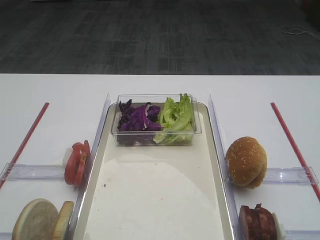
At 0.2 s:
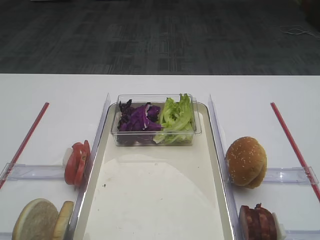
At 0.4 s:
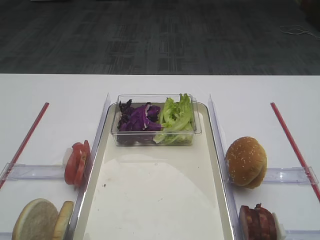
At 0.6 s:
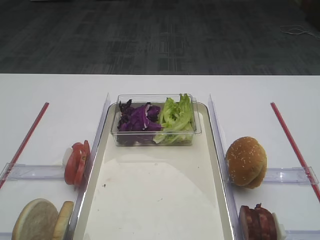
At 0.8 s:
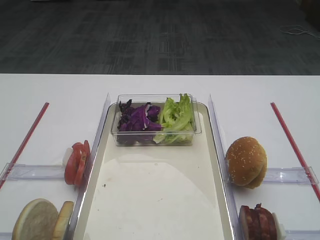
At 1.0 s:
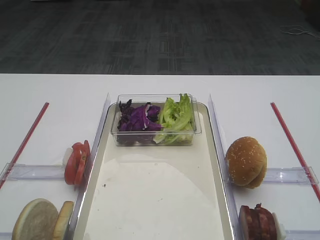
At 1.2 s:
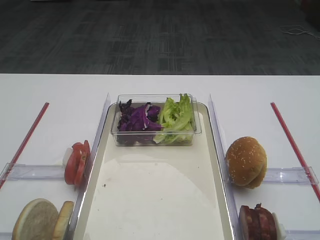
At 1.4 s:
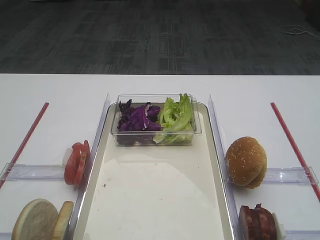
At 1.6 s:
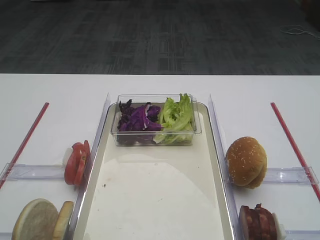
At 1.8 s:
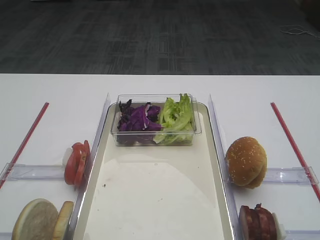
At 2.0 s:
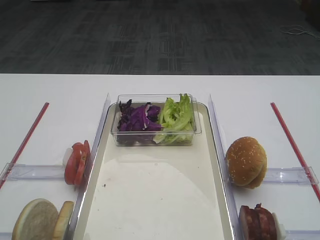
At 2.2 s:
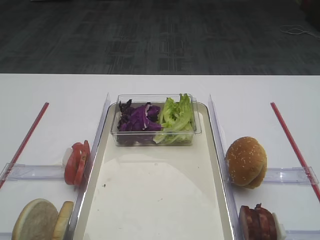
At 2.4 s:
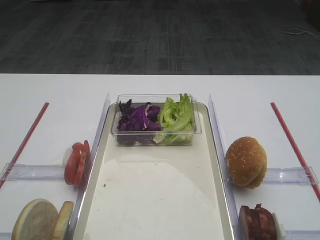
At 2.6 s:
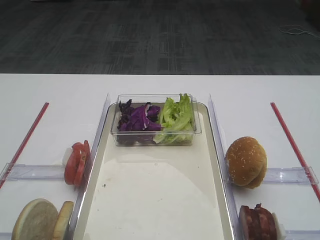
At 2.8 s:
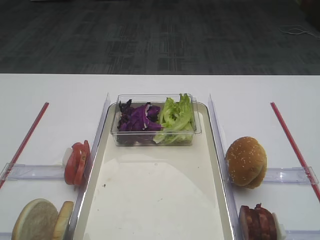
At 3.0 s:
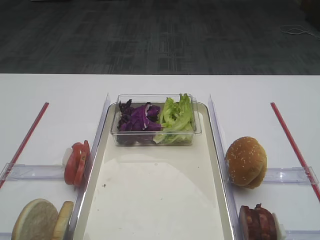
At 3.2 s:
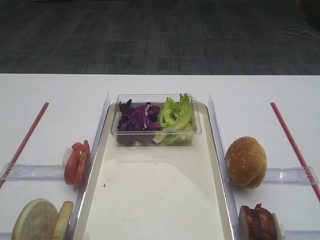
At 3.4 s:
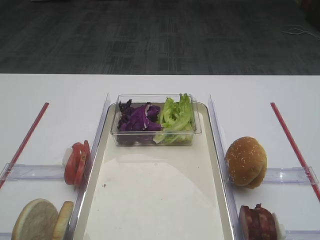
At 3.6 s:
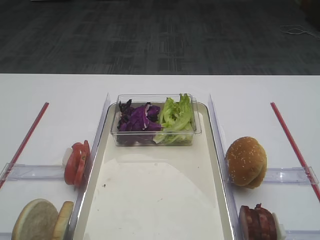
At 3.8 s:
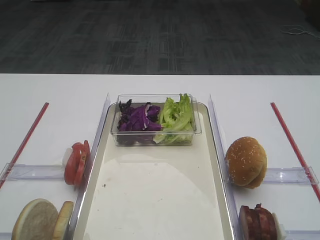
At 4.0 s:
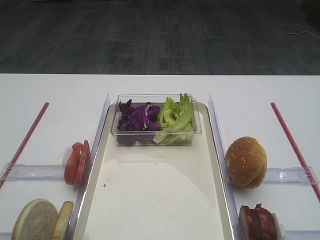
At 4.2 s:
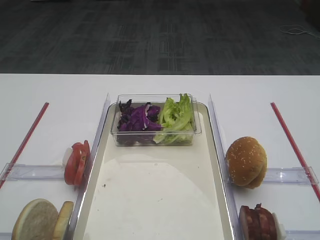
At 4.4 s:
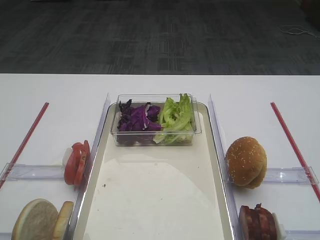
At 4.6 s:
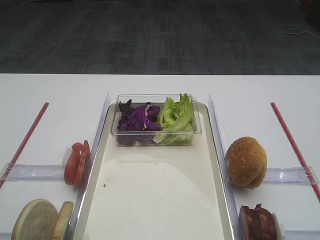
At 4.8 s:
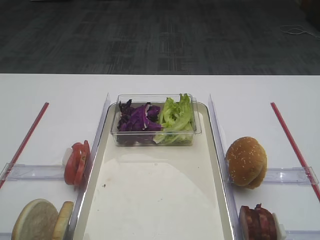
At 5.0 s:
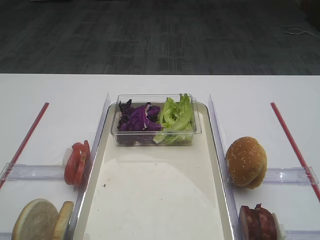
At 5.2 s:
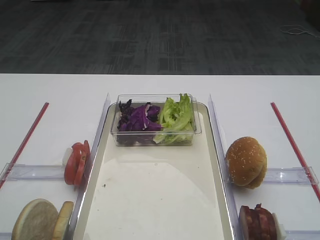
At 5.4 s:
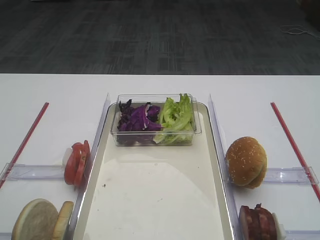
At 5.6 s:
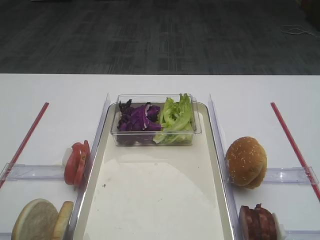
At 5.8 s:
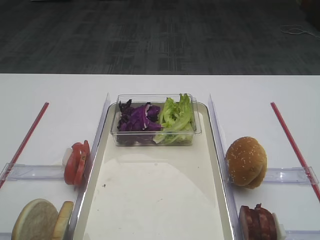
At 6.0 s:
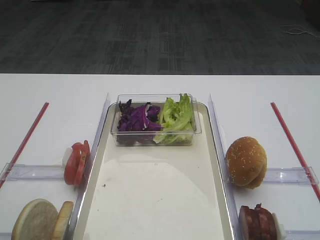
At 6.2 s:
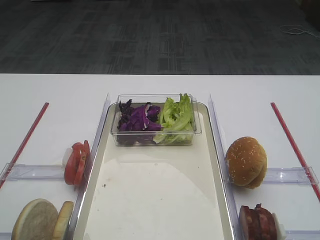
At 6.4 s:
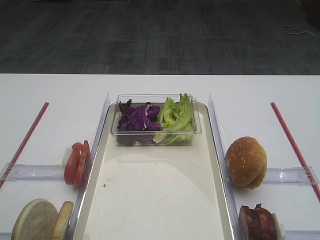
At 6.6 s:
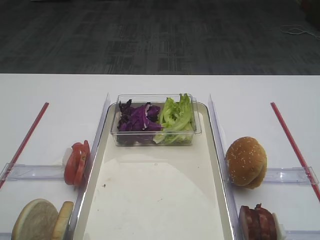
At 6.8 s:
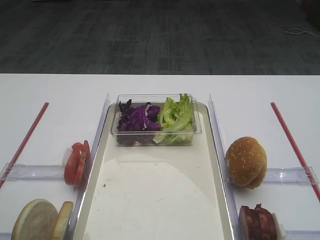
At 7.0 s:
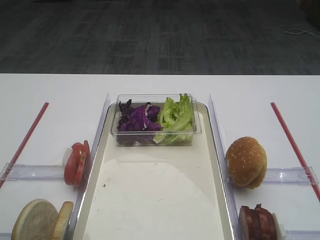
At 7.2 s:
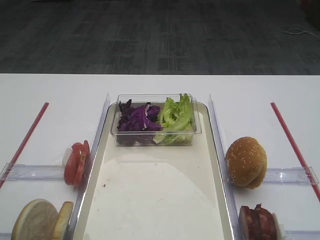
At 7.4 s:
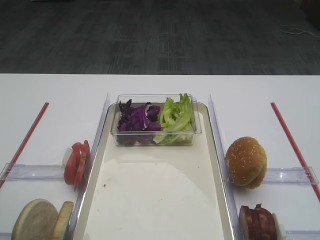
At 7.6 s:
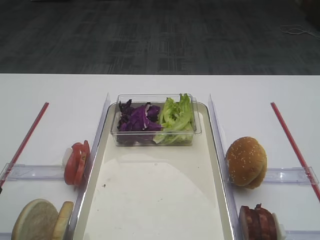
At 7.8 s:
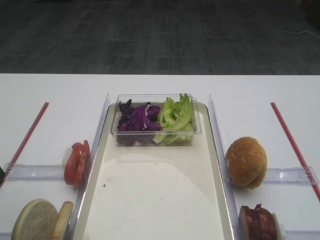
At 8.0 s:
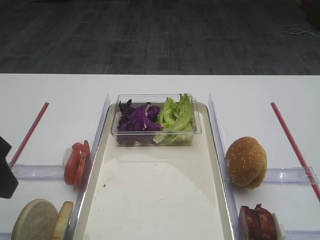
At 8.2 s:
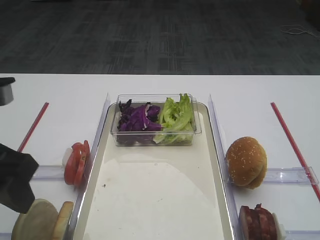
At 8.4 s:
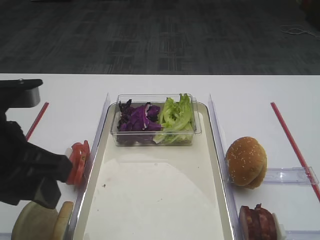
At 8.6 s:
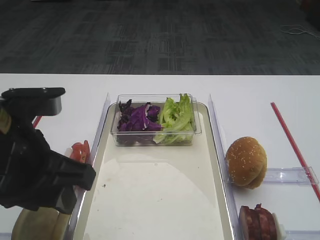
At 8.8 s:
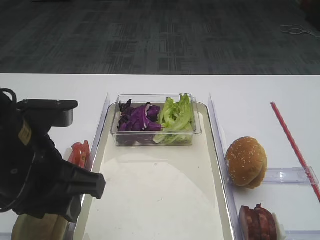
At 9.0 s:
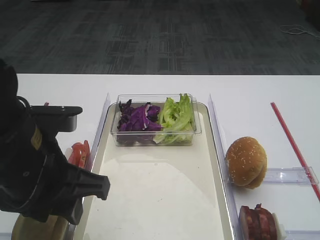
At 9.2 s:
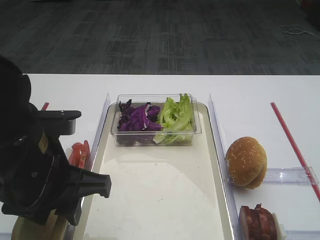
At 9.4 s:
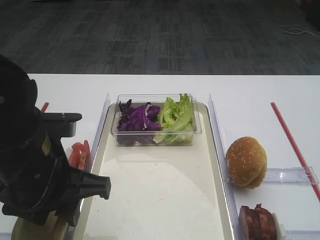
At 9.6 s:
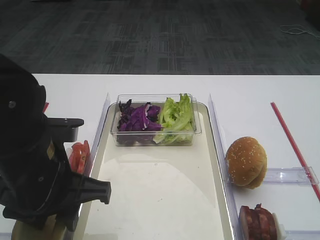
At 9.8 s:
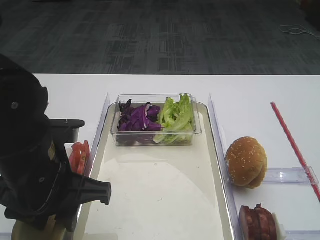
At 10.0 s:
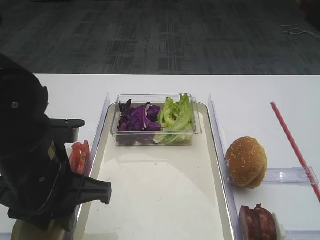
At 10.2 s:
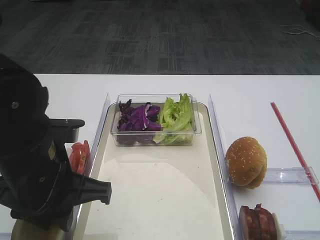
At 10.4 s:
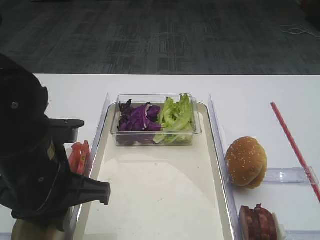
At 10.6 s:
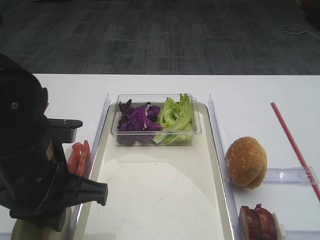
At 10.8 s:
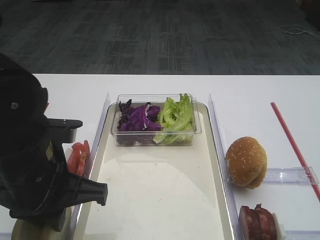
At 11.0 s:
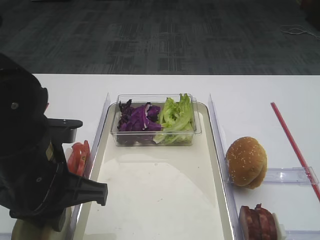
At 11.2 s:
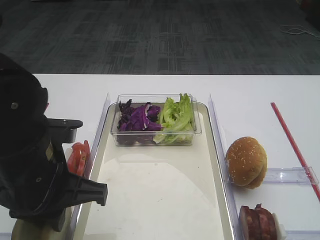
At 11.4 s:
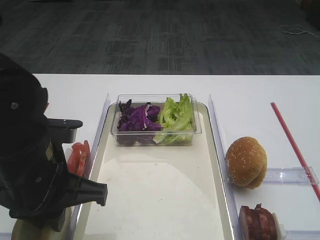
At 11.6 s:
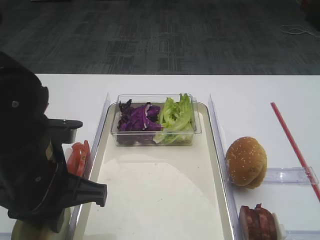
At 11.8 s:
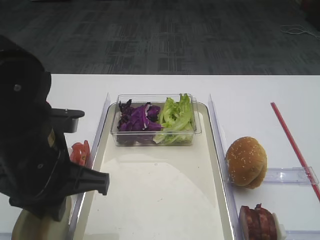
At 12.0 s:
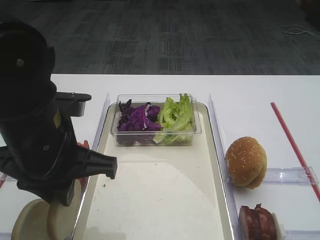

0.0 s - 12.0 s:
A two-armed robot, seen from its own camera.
Step, 0.0 s - 12.0 s: Pick up the bread slice with the left gripper.
7.6 s - 9.0 s: The left gripper shifts approximately 10 cm to the right.
9.0 s - 10.4 s: The left gripper closes.
10.4 s - 12.0 s: There are only small adjustments of the grippers.

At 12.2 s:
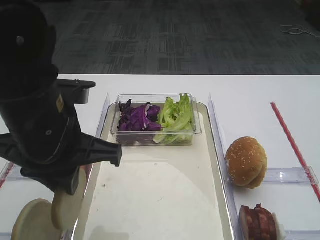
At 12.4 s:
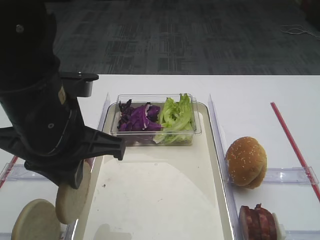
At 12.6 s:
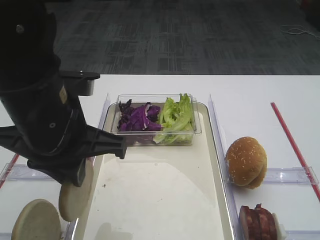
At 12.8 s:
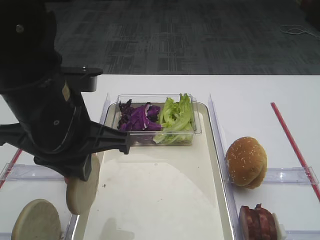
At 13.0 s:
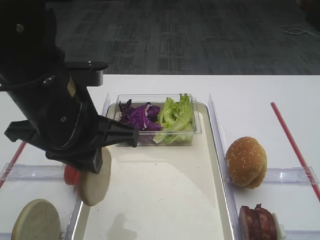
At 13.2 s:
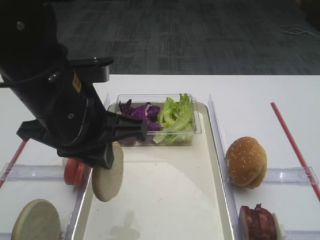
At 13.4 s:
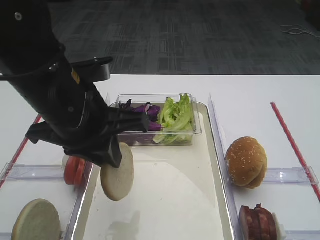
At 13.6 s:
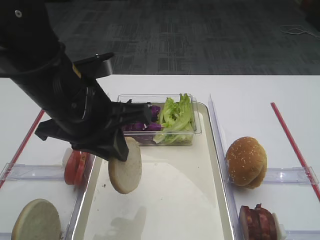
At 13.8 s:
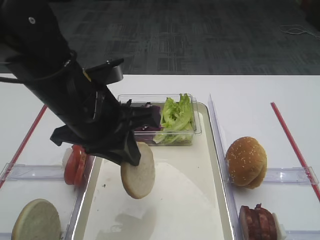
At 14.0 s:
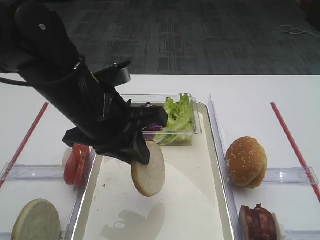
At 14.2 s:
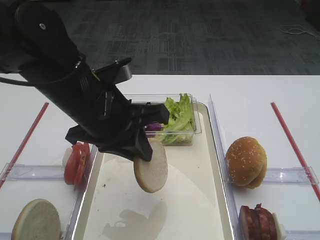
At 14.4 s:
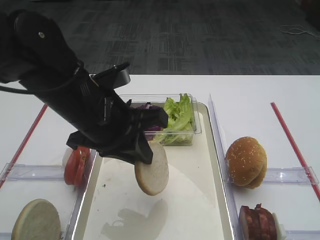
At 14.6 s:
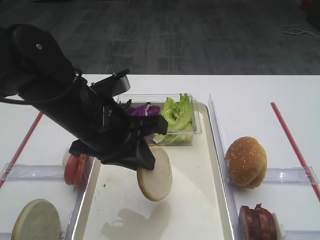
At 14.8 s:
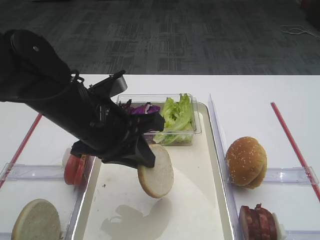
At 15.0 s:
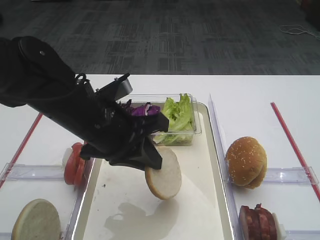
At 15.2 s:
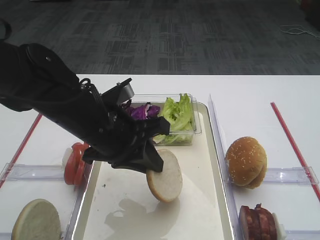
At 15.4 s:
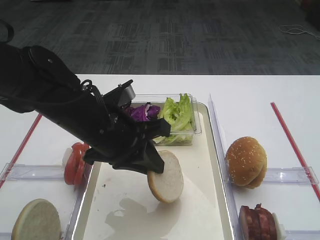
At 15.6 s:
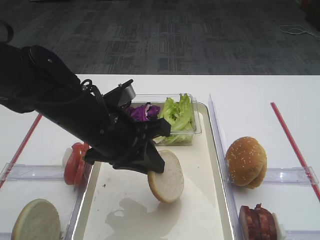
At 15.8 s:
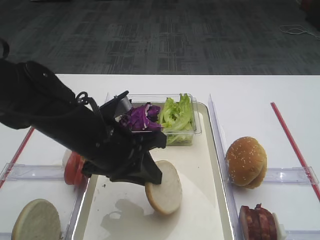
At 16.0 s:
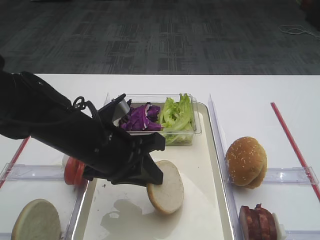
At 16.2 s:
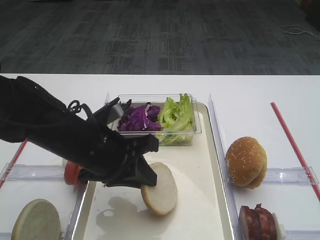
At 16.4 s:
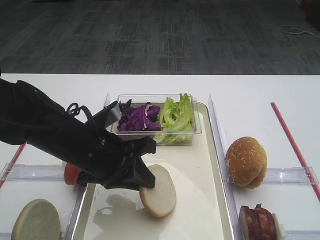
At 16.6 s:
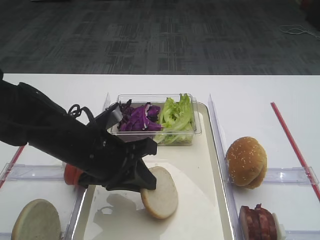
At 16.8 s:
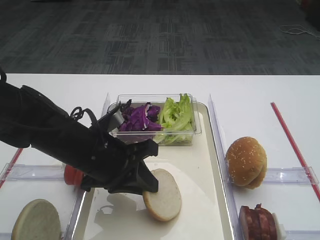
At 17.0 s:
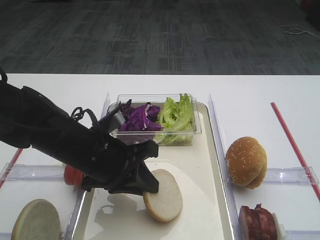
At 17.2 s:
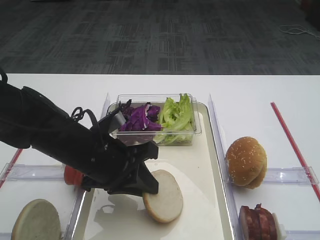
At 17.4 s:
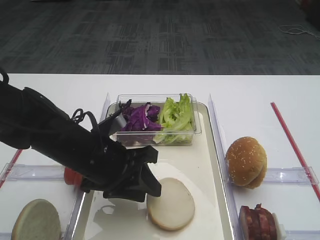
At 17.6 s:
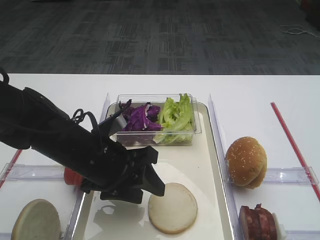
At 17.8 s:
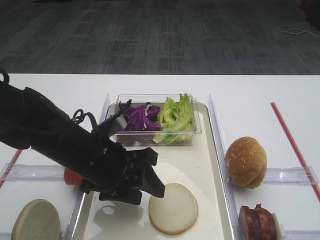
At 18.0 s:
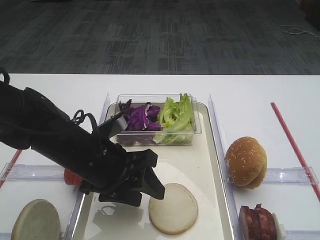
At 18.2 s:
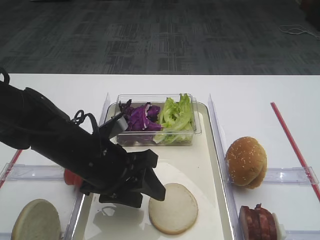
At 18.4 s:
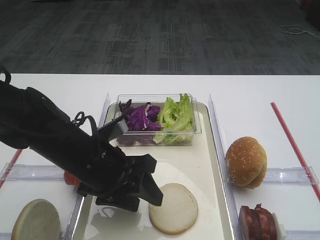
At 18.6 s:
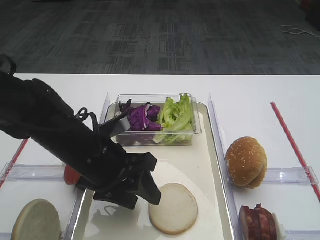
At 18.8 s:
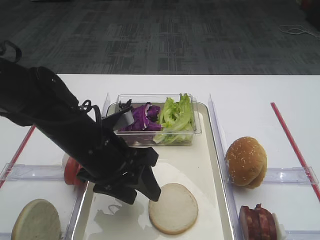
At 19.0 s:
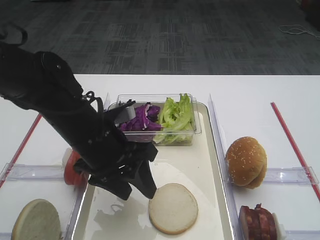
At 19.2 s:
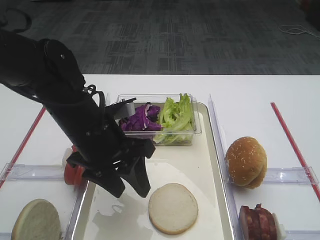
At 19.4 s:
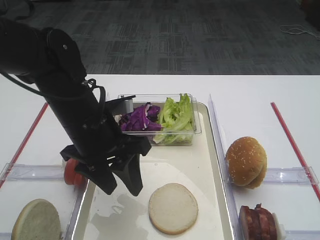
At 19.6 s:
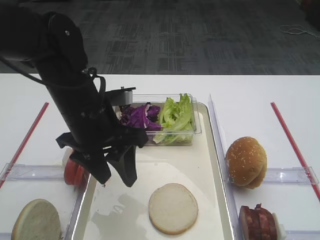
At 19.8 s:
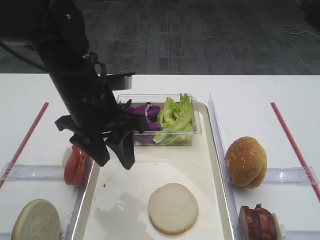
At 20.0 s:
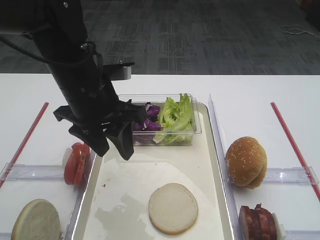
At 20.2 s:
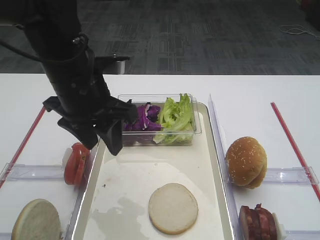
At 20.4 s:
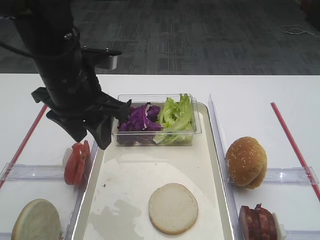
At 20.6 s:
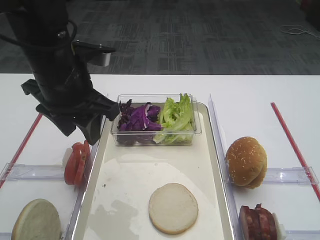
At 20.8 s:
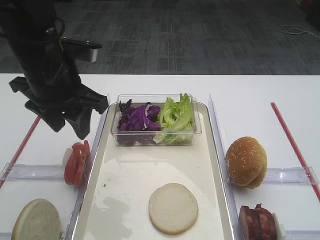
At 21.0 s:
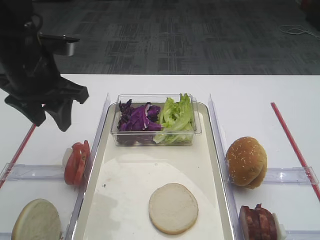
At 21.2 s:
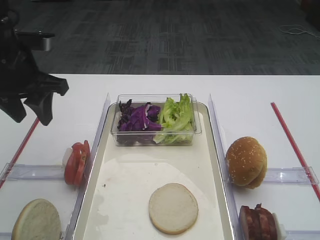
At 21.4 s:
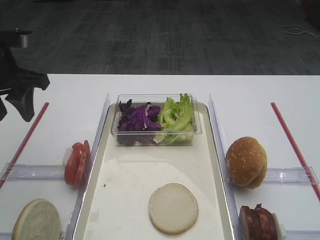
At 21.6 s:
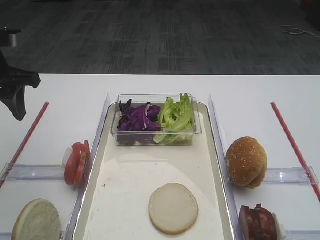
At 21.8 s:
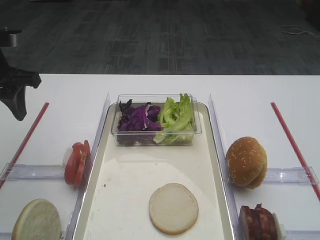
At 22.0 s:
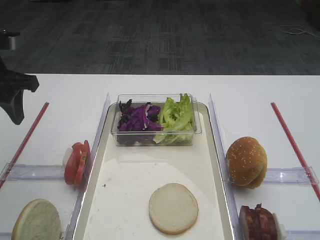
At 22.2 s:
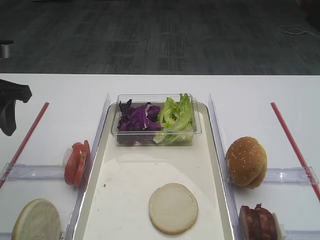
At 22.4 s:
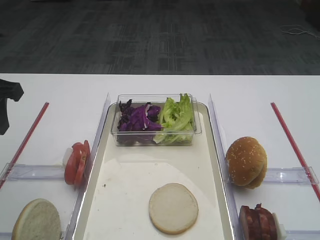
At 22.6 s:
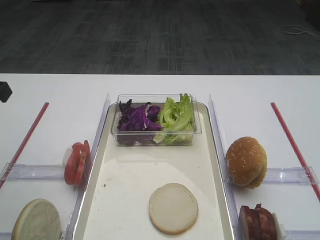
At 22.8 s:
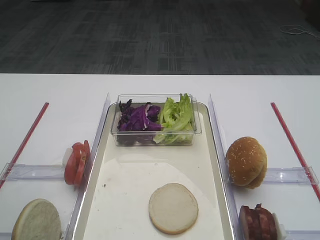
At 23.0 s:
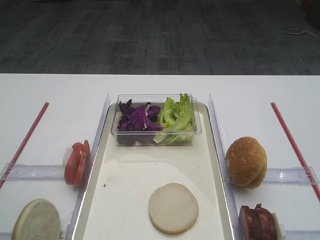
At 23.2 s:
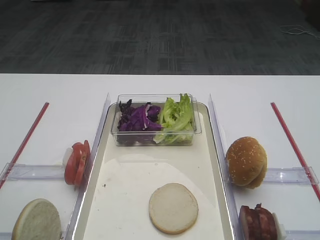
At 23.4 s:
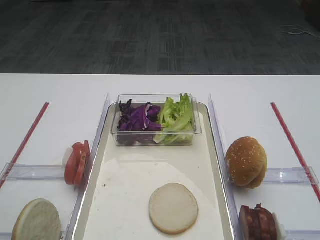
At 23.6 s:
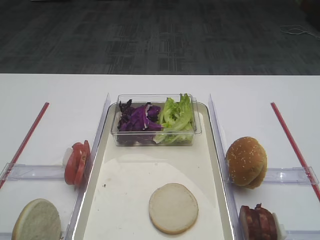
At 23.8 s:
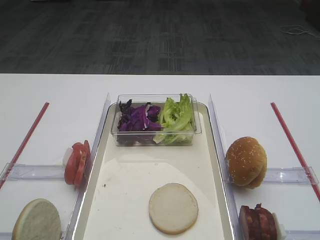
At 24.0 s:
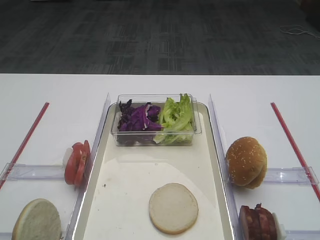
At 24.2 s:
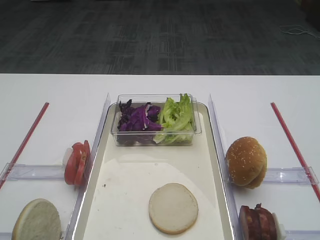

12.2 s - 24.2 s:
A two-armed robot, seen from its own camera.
Step, 12.2 s - 19.2 s: Place the bread slice on the tray with the left gripper.
13.8 s - 15.2 s: The left gripper moves downward, roughly 5 cm.
15.2 s - 16.6 s: The grippers stay close to where they were, moving slightly.
16.6 s - 18.2 s: The left gripper opens.
18.2 s - 19.8 s: The left gripper heads upward and forward, covering about 10 cm.
19.8 s - 21.2 s: The left gripper travels to the left by approximately 10 cm.
21.2 s - 22.6 s: The left gripper heads backward, covering about 5 cm.
22.6 s - 24.2 s: The left gripper shifts roughly 20 cm backward.
